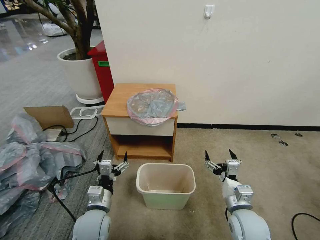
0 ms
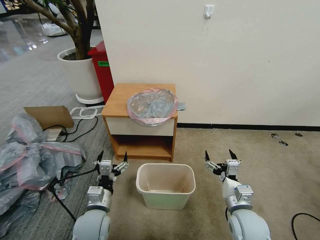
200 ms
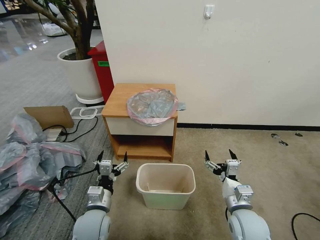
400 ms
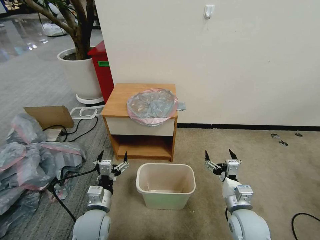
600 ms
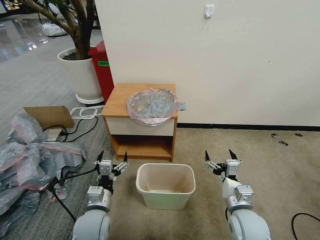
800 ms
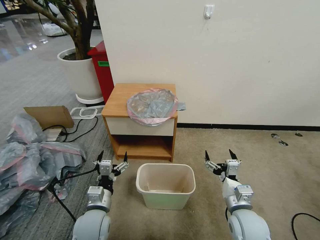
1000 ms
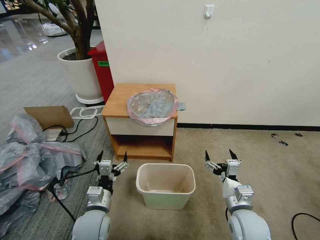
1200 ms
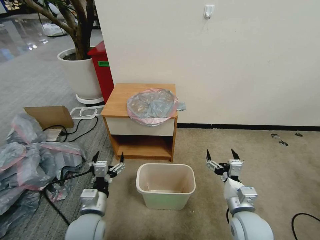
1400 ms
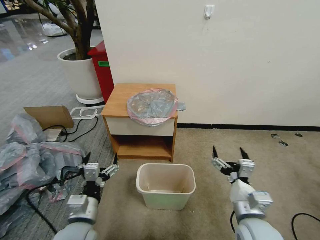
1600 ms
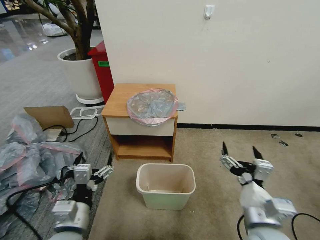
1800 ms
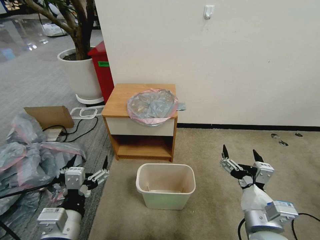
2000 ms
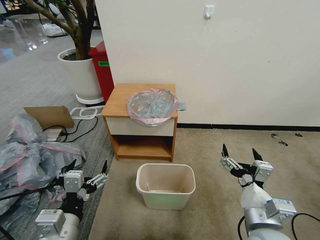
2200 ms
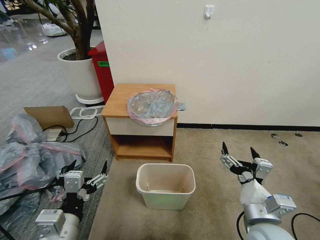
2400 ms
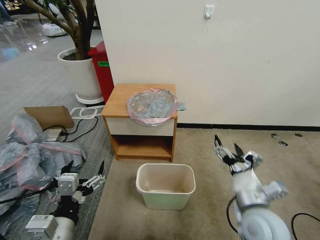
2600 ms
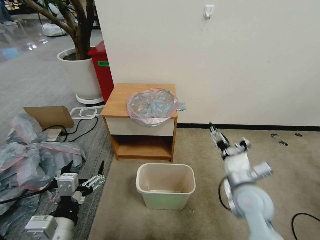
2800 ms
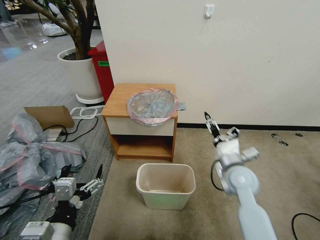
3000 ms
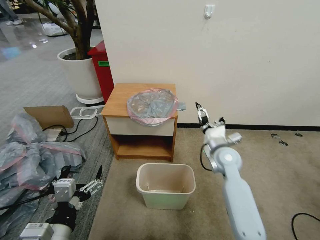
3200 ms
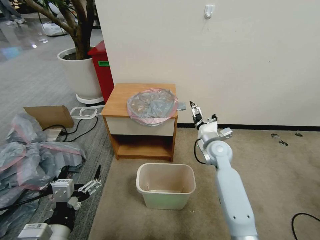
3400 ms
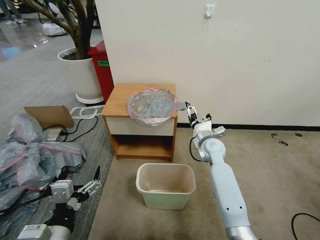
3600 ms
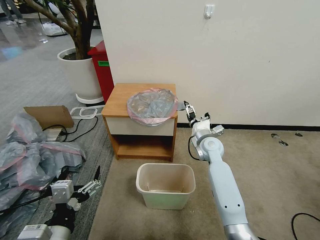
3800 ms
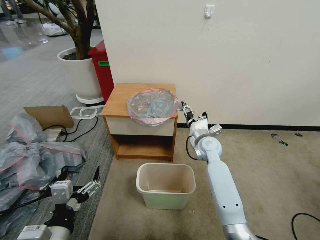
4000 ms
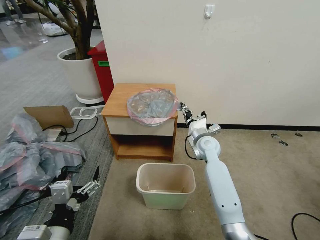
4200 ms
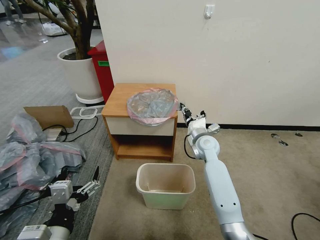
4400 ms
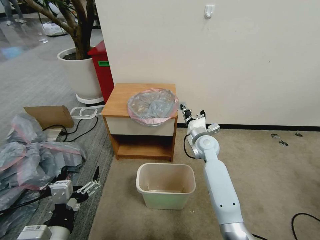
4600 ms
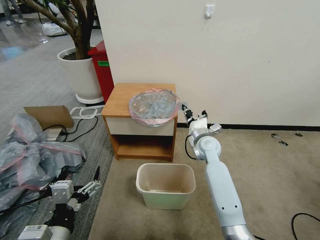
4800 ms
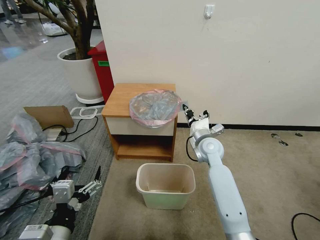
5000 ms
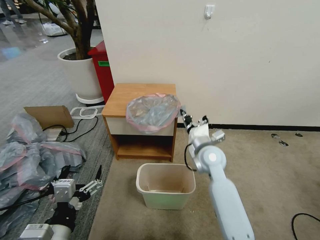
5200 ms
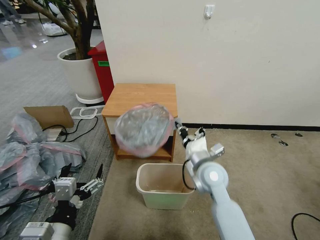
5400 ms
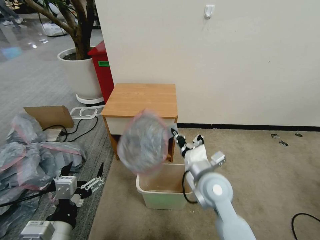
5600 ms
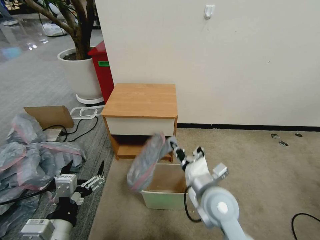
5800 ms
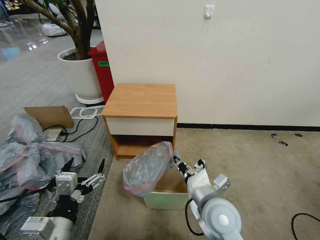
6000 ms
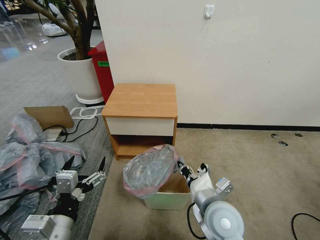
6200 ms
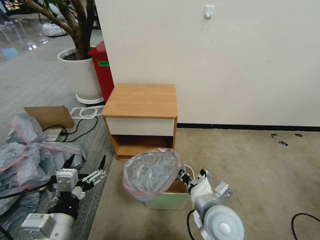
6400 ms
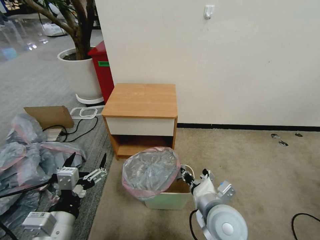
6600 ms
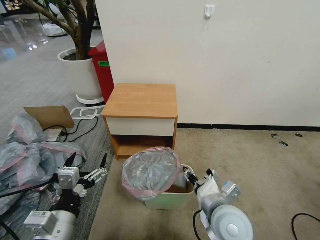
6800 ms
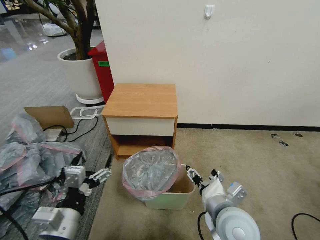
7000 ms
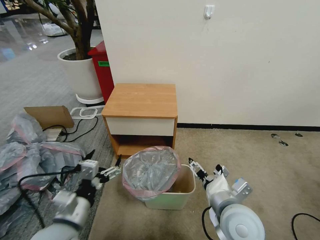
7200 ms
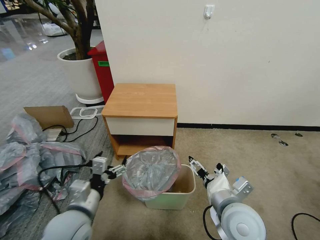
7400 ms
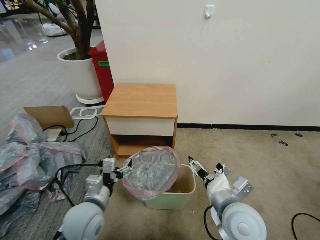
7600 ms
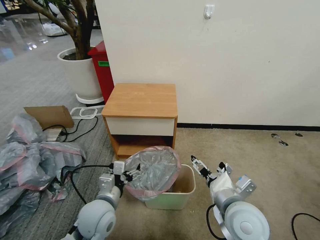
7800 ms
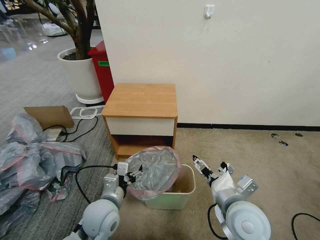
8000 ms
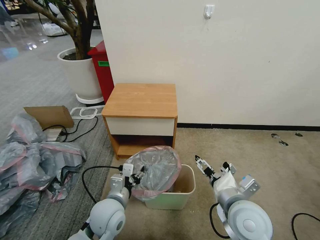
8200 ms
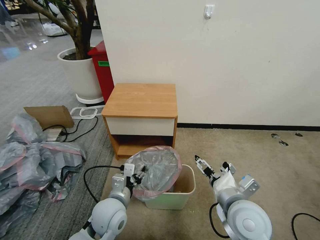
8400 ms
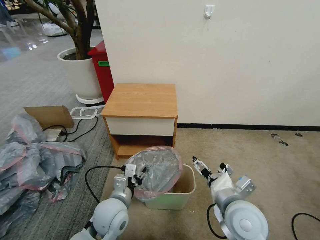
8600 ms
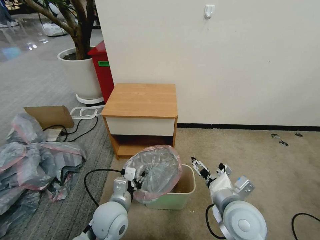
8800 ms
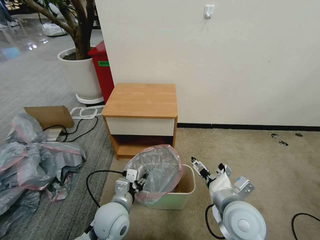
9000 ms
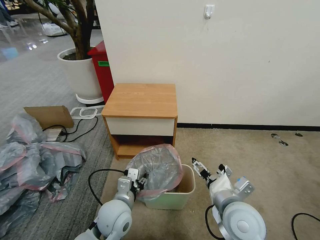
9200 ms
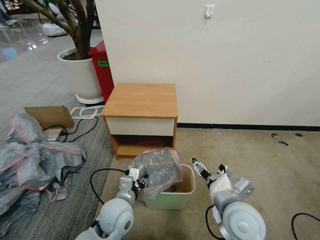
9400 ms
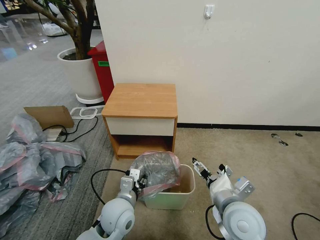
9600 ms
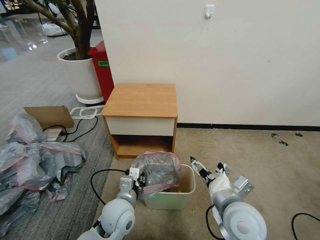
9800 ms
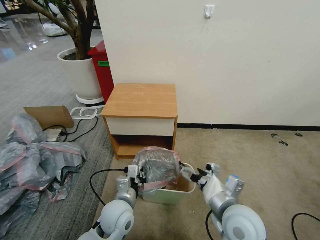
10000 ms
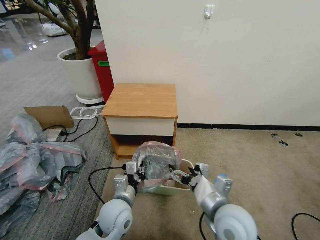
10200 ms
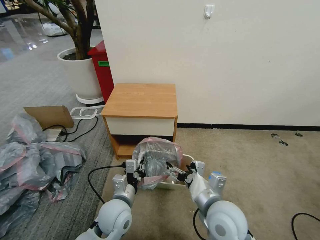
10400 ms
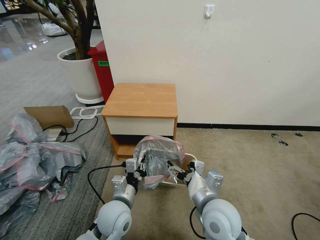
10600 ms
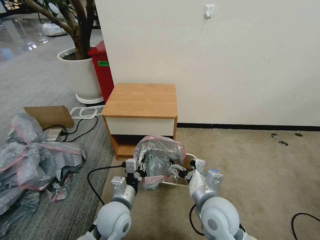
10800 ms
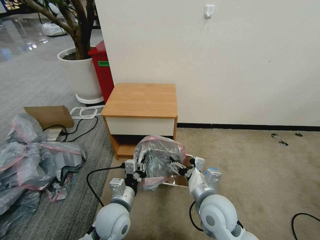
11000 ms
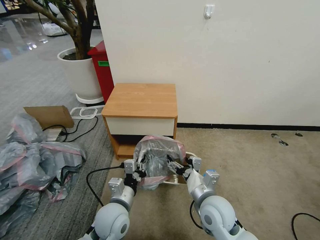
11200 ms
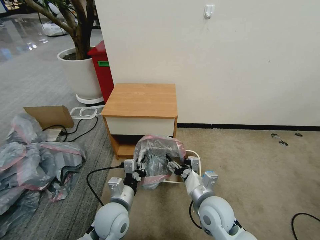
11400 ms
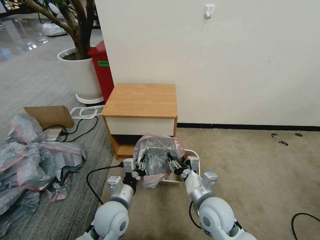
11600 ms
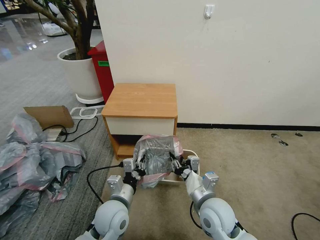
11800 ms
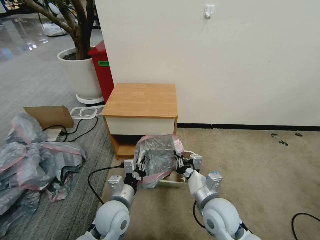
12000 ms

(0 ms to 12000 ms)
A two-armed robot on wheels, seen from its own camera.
Task of the whole recording: Pick up the garbage bag from the table and place it over the trash can.
1600 ms - 3000 ms: The right gripper shifts roughly 15 cm forward. Meanwhile the left gripper goes about 10 cm backward and upward.
3000 ms - 4400 ms: The right gripper heads forward and to the left, covering about 15 cm, and closes.
4400 ms - 6000 ms: The right gripper shifts some 25 cm backward.
6000 ms - 7600 ms: The left gripper goes roughly 15 cm forward and downward. Meanwhile the right gripper ends up roughly 5 cm from where it was, and opens up.
7600 ms - 9000 ms: The left gripper shifts about 5 cm to the right, and closes up.
9000 ms - 10400 ms: The left gripper closes up.
10400 ms - 12000 ms: The right gripper changes place by some 5 cm, and closes up.

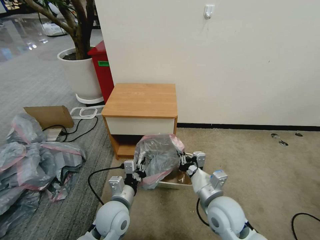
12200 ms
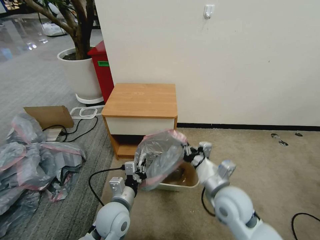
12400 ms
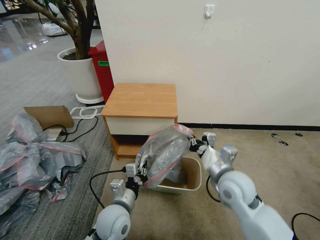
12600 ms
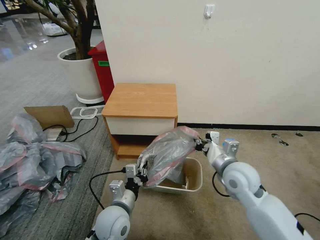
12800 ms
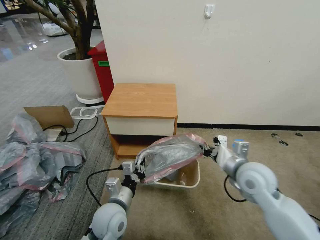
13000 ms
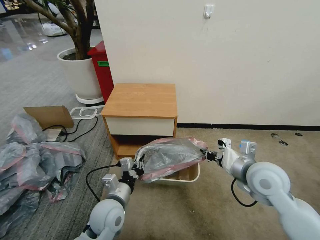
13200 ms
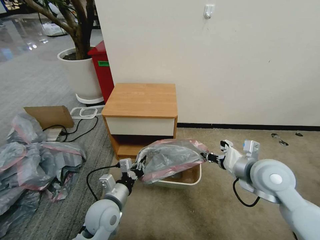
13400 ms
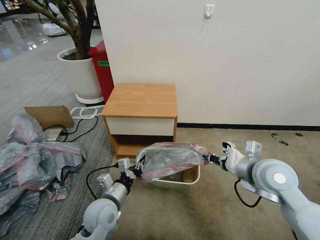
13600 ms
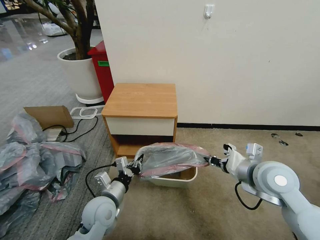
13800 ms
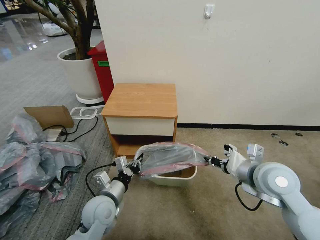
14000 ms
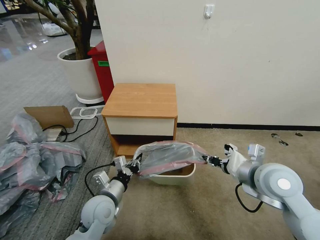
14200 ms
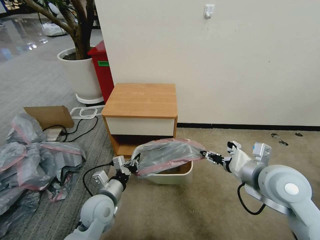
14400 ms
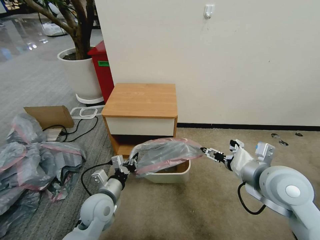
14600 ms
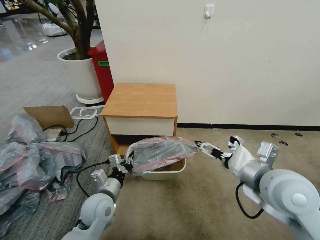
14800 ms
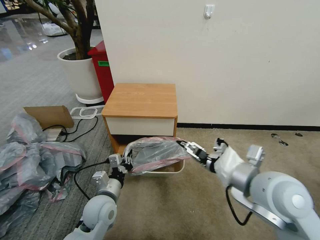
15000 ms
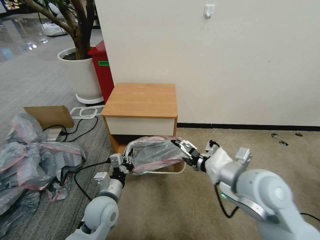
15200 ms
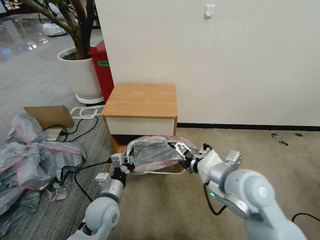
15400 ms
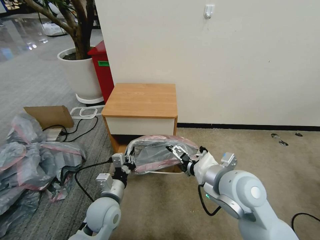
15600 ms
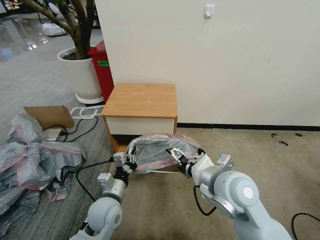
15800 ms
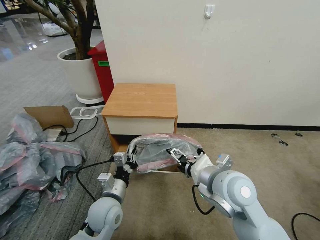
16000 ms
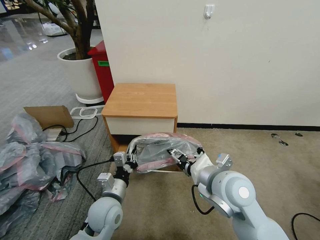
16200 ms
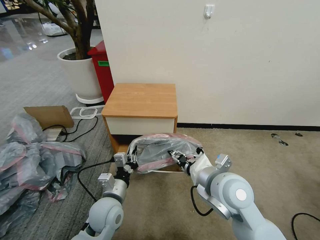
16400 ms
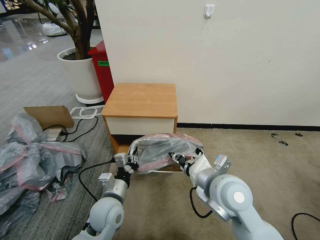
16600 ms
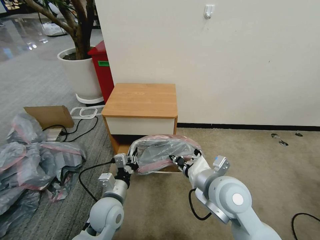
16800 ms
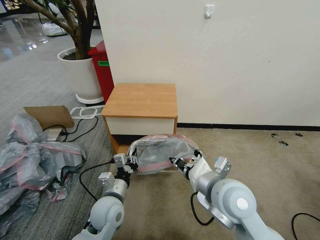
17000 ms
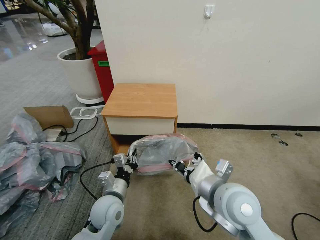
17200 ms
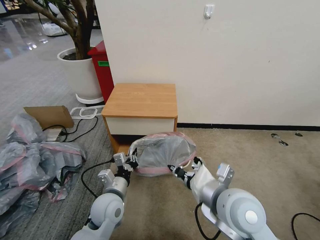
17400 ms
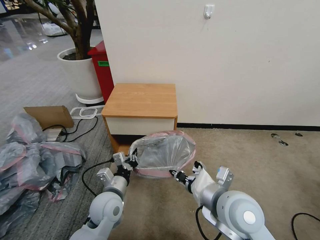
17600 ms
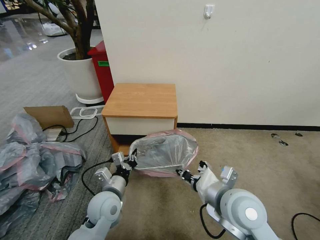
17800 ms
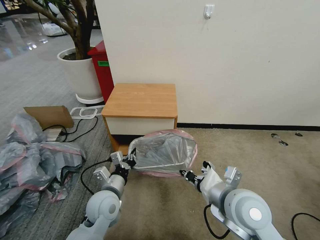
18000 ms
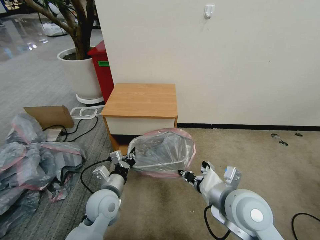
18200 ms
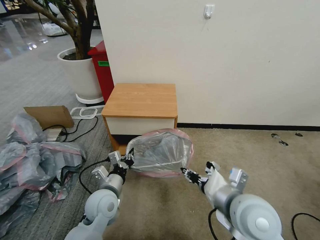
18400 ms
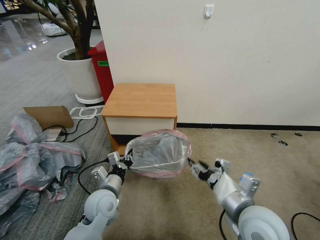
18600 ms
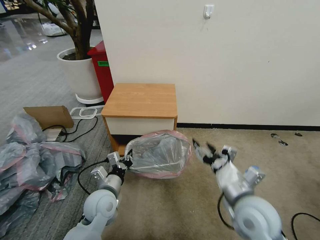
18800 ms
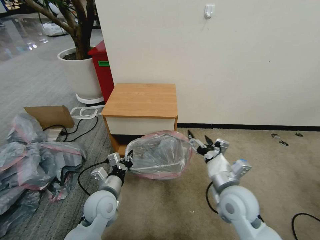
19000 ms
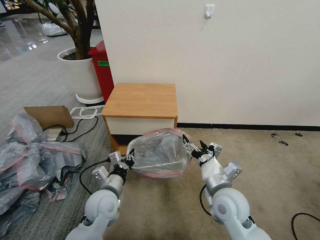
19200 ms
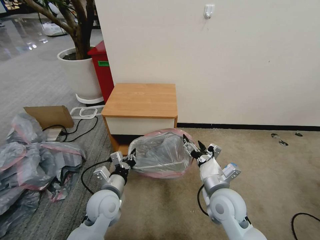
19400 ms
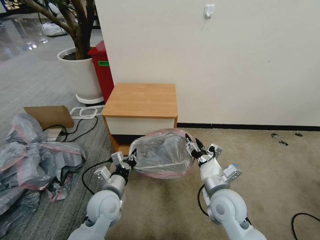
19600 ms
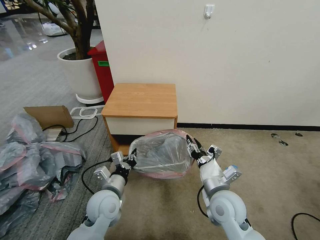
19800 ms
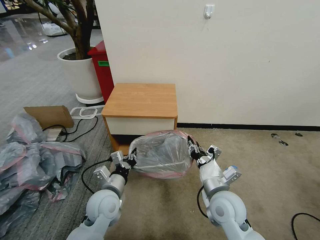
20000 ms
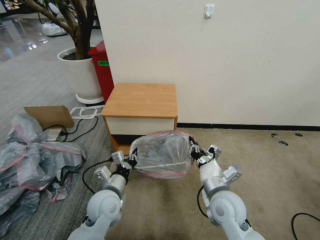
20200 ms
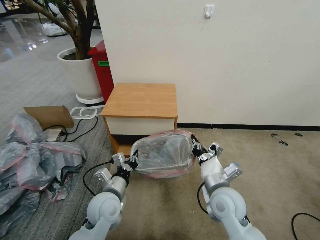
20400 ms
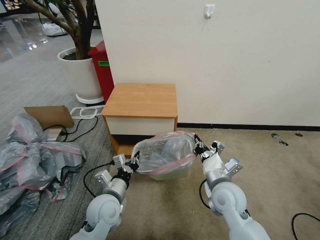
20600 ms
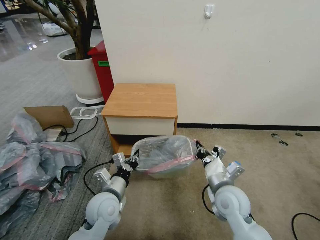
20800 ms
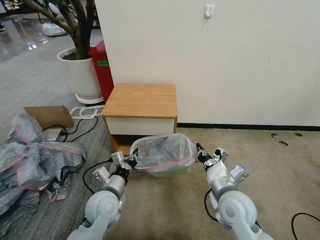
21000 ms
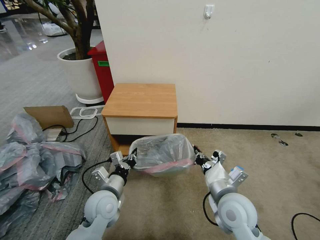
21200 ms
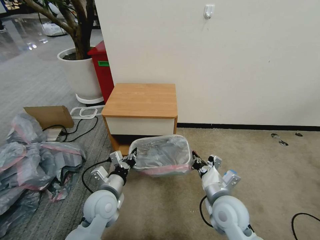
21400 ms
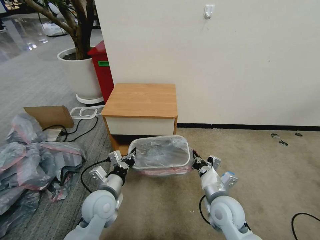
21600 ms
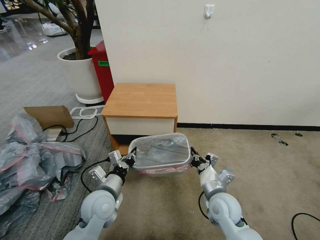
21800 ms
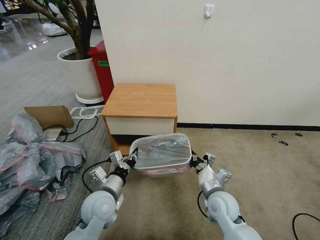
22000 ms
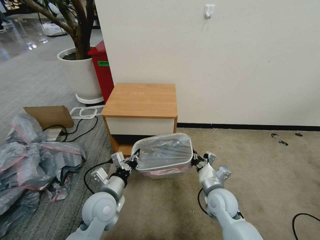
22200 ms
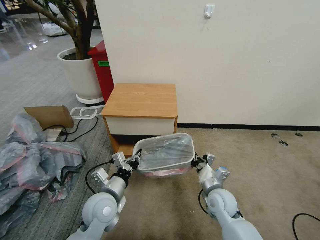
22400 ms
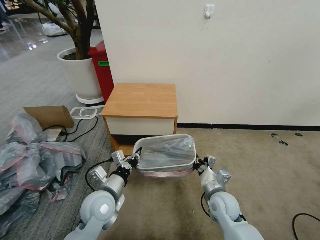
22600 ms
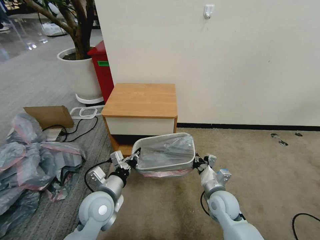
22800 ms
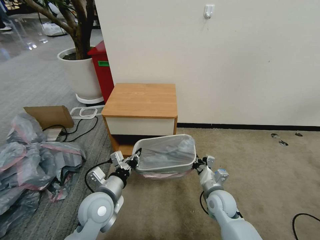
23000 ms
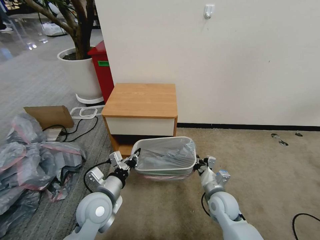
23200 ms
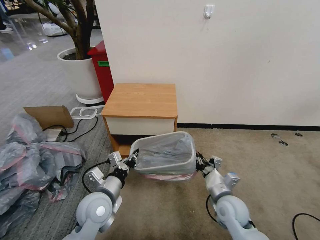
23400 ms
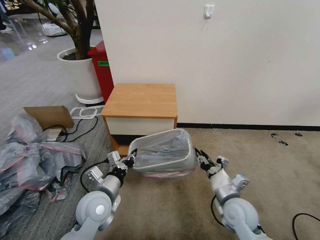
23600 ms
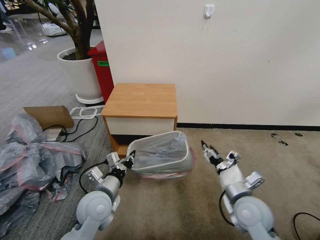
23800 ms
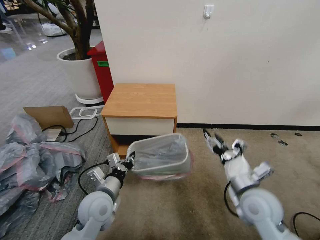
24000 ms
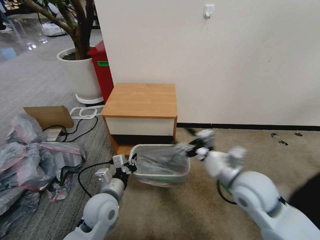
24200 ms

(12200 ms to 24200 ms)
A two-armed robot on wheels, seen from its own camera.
Task of the whole recording: Pick up the garbage bag from the table and place it over the trash can.
12200 ms - 13800 ms: The right gripper is displaced to the right, upward and forward by approximately 15 cm.
13800 ms - 15200 ms: The right gripper goes approximately 5 cm to the left, and opens up.
15200 ms - 16600 ms: The right gripper goes roughly 5 cm to the left, and closes.
16600 ms - 18200 ms: There are only small adjustments of the grippers.
18200 ms - 19800 ms: The right gripper shifts some 10 cm downward, and opens and closes again.
19800 ms - 21200 ms: The right gripper closes.
21200 ms - 22600 ms: The right gripper travels downward by some 10 cm.
22600 ms - 24200 ms: The right gripper heads upward, covering approximately 20 cm, and opens up.
